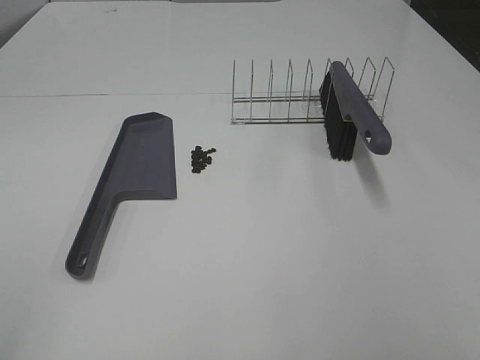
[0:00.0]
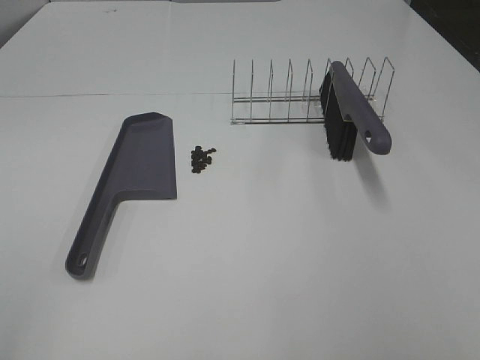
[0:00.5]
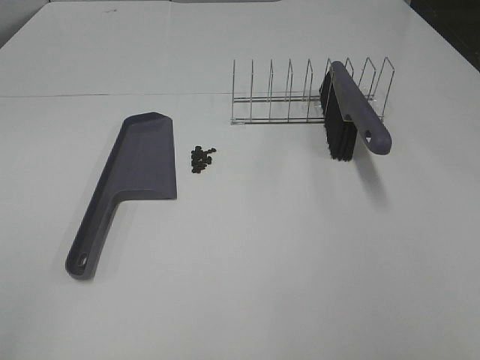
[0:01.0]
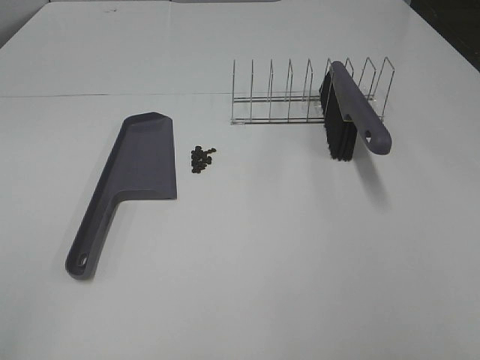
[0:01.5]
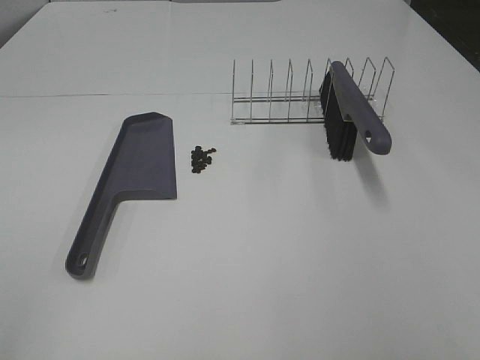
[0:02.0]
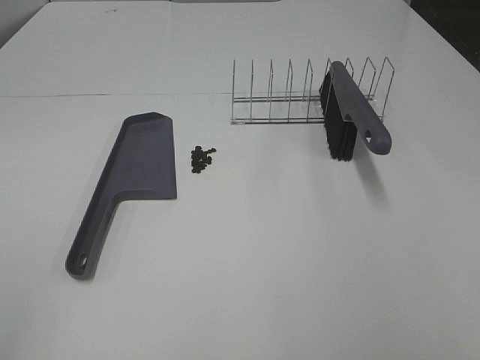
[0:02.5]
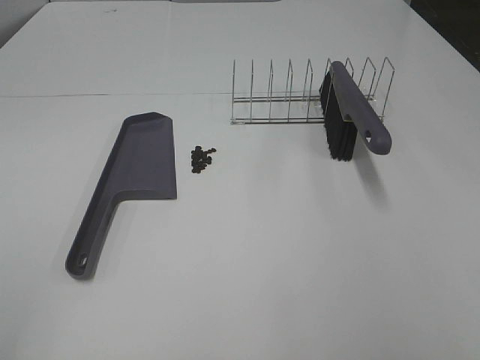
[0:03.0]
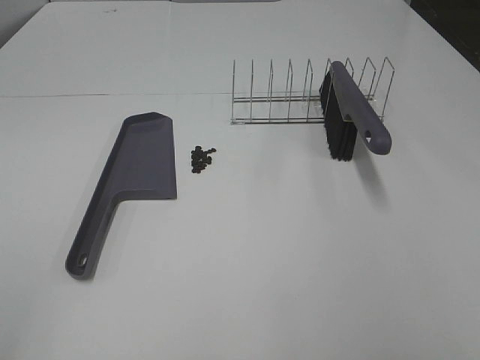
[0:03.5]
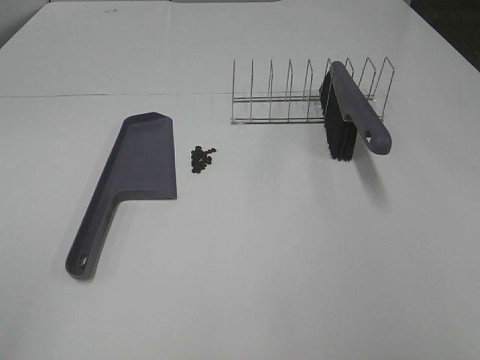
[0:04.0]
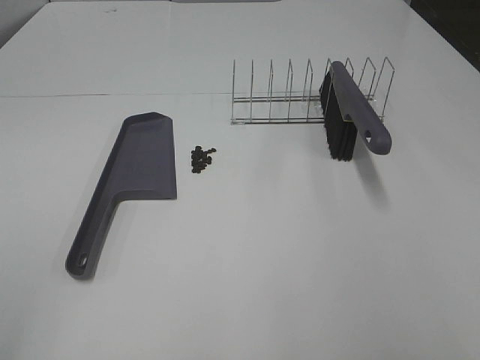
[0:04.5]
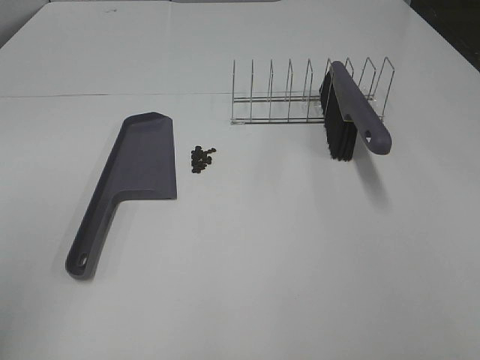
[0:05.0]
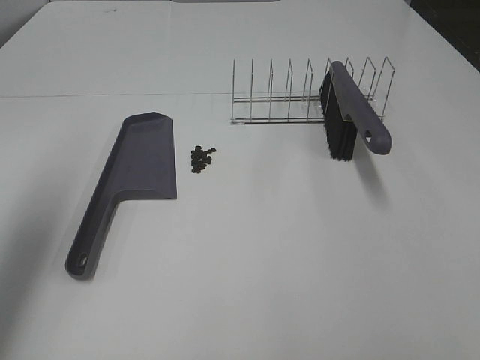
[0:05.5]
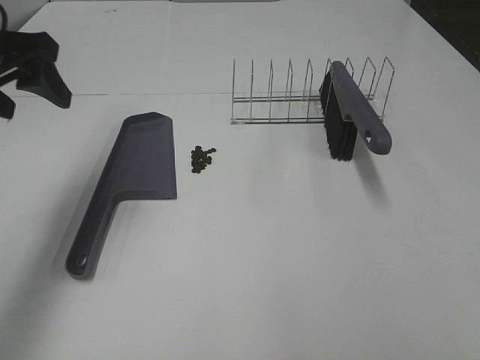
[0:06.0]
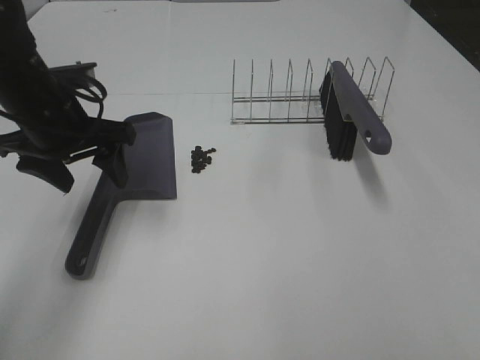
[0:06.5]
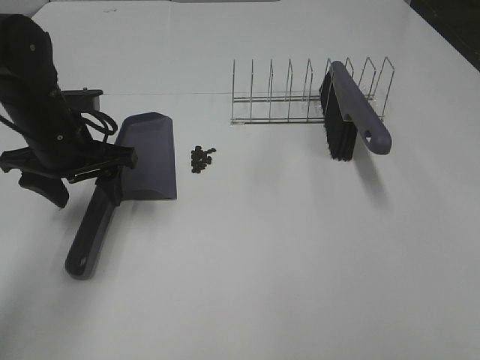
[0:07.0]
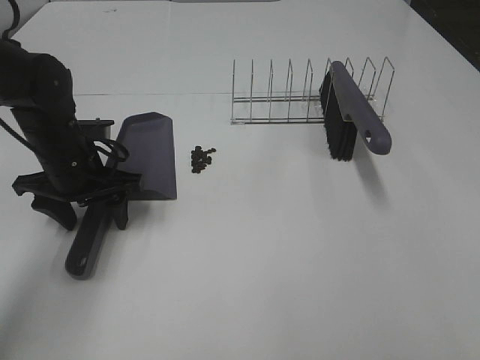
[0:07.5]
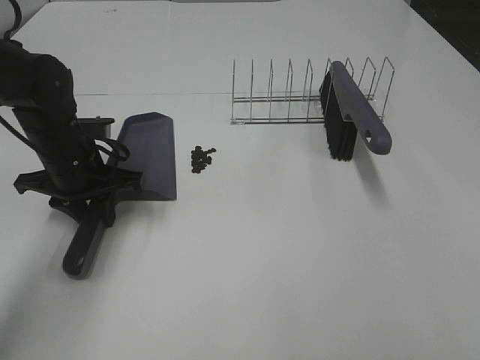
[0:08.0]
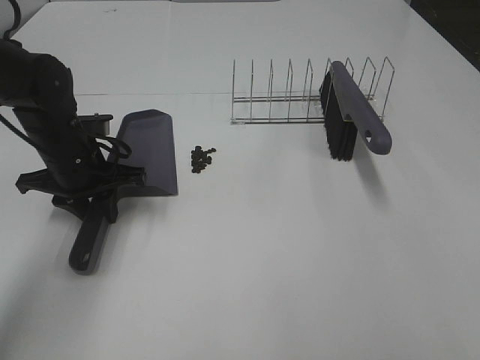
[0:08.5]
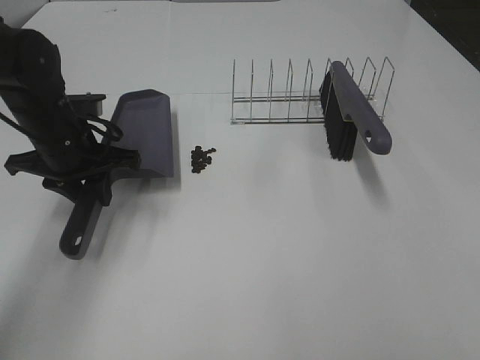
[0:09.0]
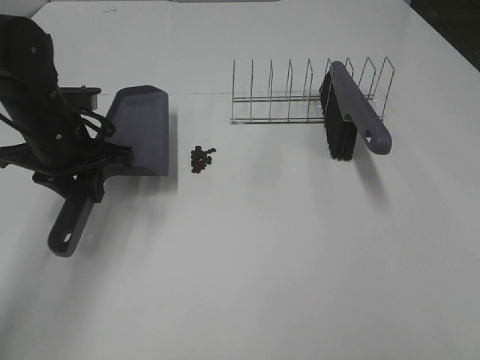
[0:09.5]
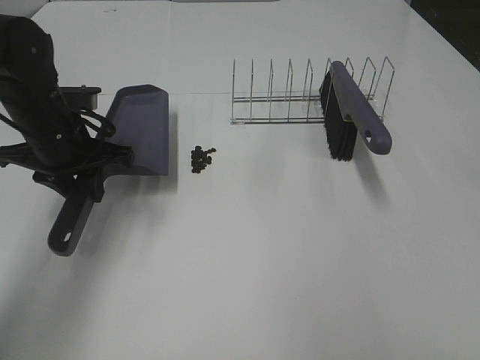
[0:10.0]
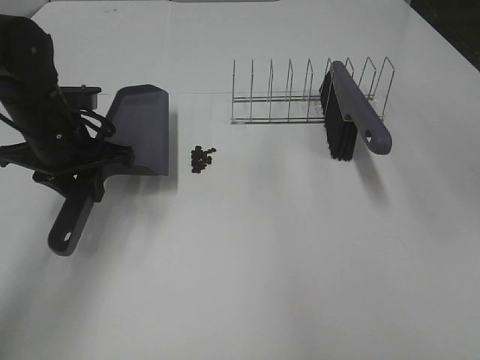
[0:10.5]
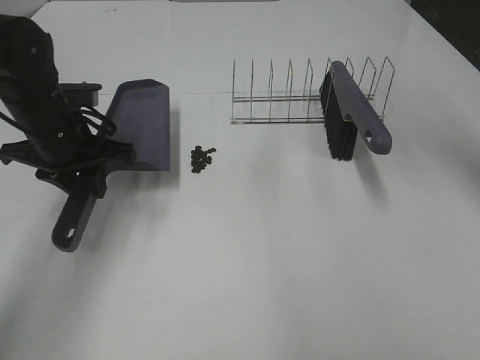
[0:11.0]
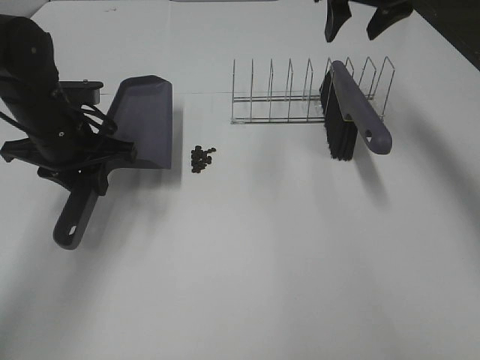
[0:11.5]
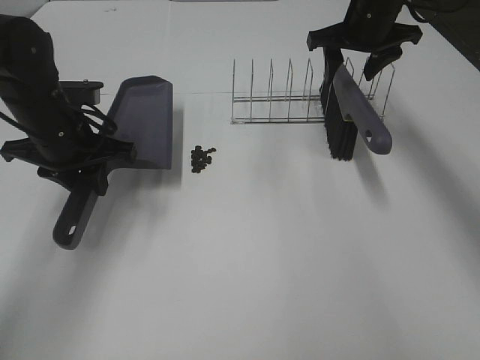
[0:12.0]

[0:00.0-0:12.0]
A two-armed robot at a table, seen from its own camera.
Task of the whole recording: Sweep Coffee Bean.
Step, 0:00.0 to 0:08.0: Left hand: grab the dustpan.
0:00.0 to 0:04.0: Both grippers stay about where they are.
0:04.0 to 0:06.0: The left gripper heads forward, covering about 35 cm.
0:06.0 to 0:08.0: The left gripper shifts some 15 cm downward, and closes its fingers.
0:08.0 to 0:10.0: The right gripper is displaced forward and upward by approximately 15 cm.
0:10.0 to 0:12.0: The right gripper is displaced forward by approximately 40 cm.

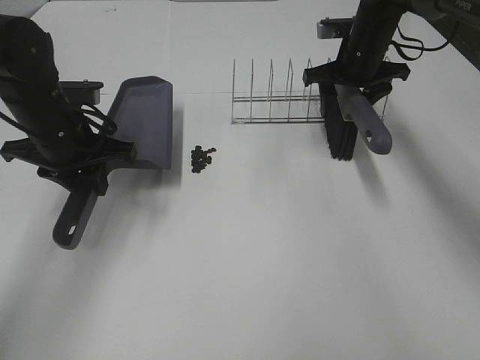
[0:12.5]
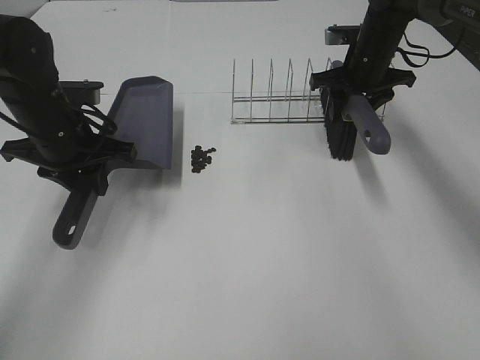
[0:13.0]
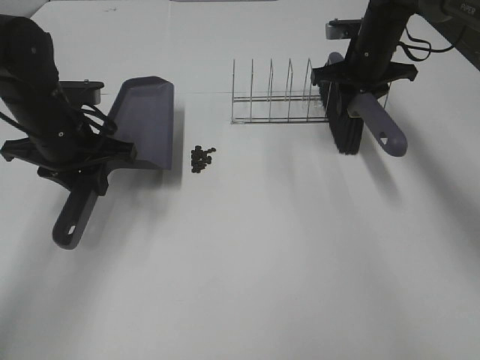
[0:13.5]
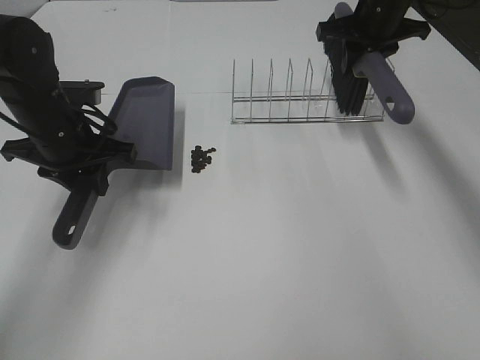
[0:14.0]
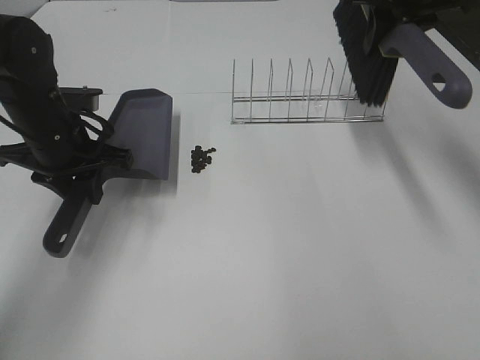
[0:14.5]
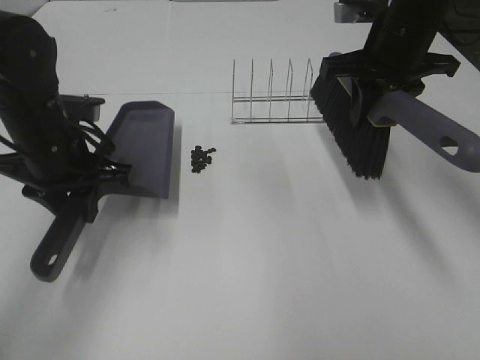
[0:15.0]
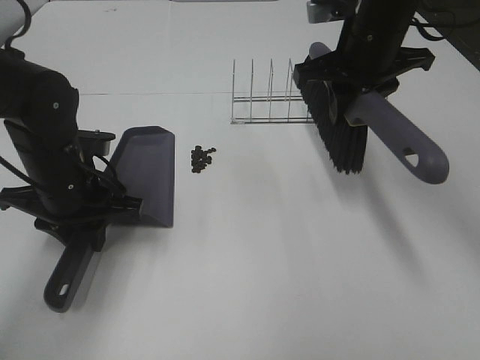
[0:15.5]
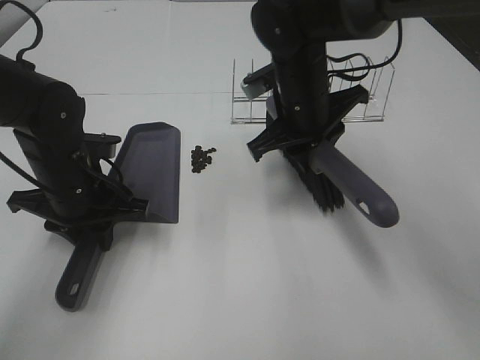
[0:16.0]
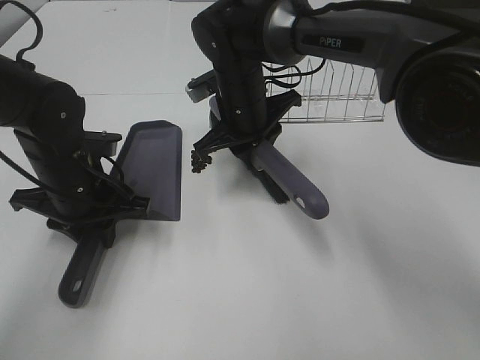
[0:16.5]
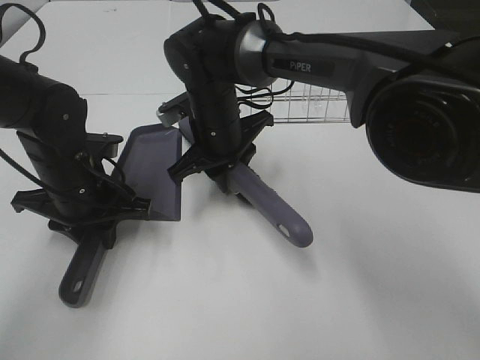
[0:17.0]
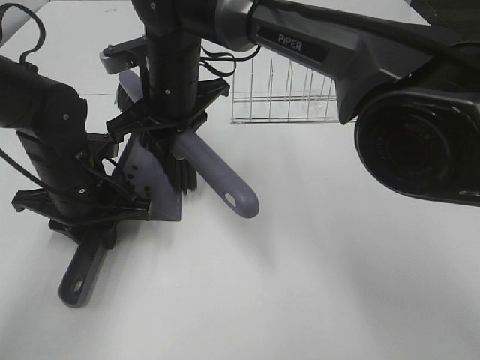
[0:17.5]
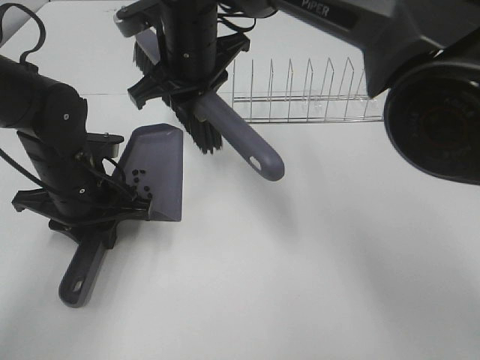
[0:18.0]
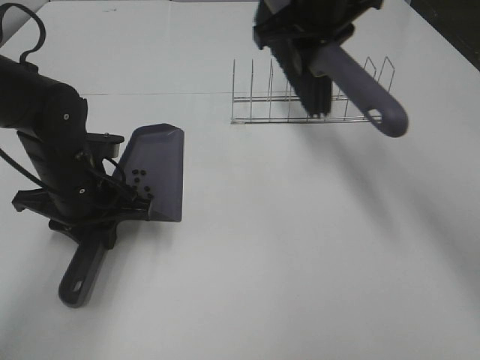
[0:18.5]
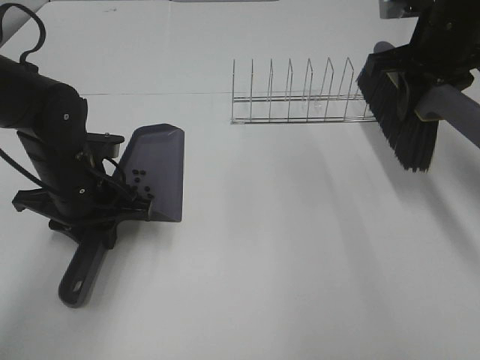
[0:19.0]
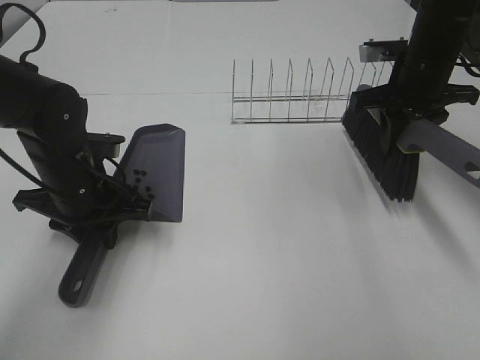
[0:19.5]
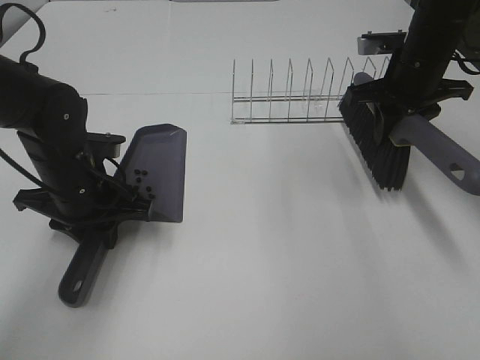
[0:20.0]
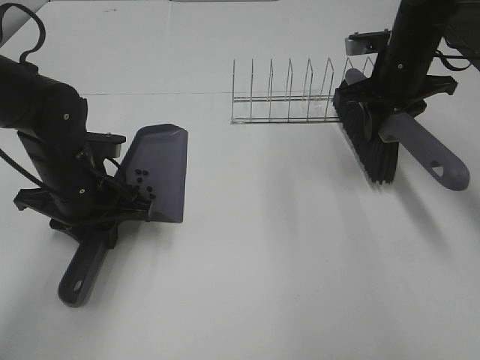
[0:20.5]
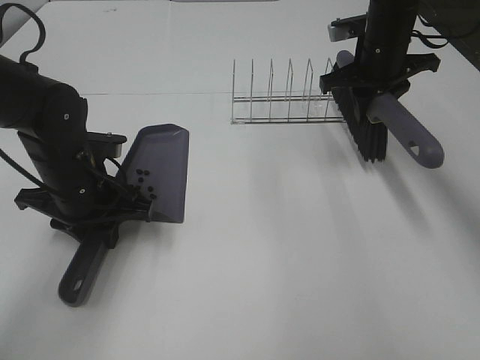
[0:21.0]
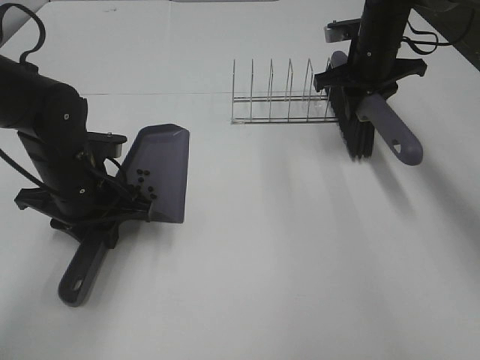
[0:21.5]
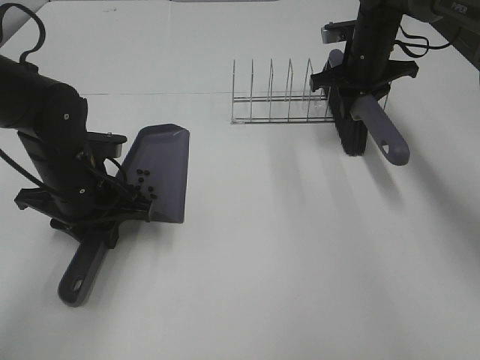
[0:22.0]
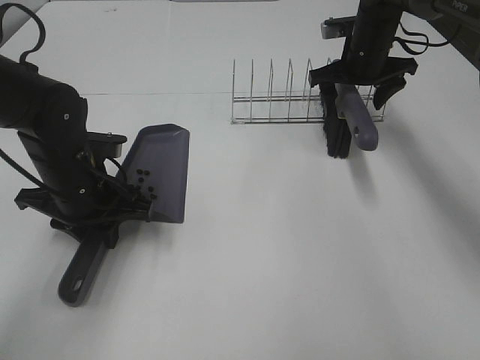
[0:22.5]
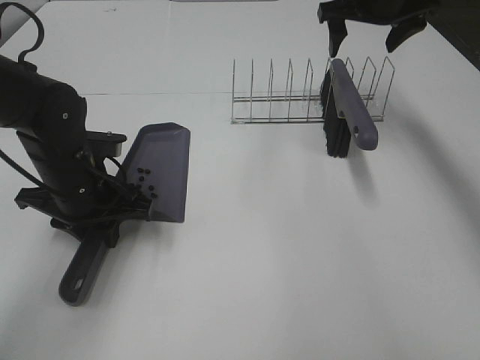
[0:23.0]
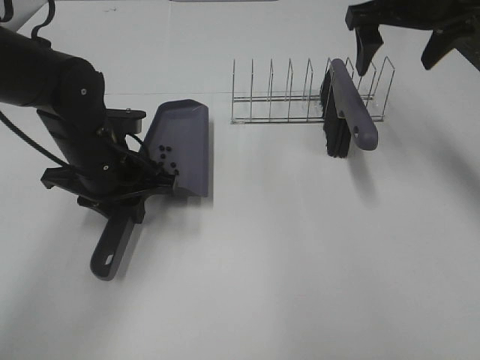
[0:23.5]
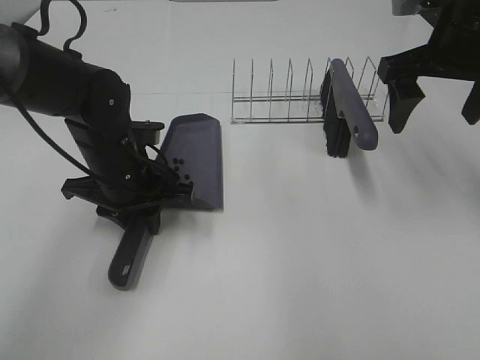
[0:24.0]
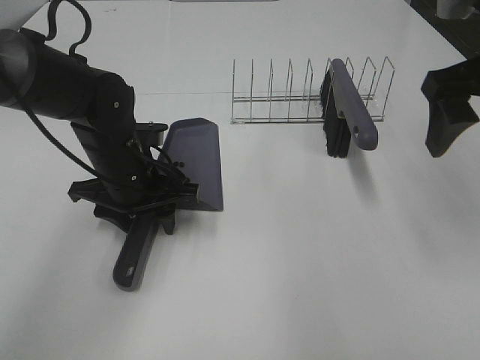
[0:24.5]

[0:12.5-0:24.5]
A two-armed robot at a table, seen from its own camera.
Task of the whole recording: Sweep Coffee Bean.
Step, 0:12.5 to 0:16.0: Left hand: move the dustpan to the left side of the coffee beans.
Step, 0:13.5 to 0:17.5: Right hand:sweep the coffee beans into the dustpan.
Step, 0:18.0 to 0:22.0: Right hand:place the broom on the rack.
Step, 0:22.5 to 0:24.5: Left hand:place the dustpan on the table.
0:12.5 to 0:14.5: The right gripper travels upward and backward by approximately 15 cm, and closes up.
0:14.5 to 0:16.5: The right gripper goes some 25 cm to the left and downward, while the left gripper changes place by approximately 5 cm.
0:16.5 to 0:18.5: The right gripper heads upward and to the right, covering roughly 15 cm.
0:18.5 to 0:20.5: The right gripper shifts roughly 15 cm to the right and downward.
0:20.5 to 0:22.5: The right gripper moves forward, roughly 10 cm, and opens up.
0:22.5 to 0:24.5: The right gripper is displaced backward and upward by approximately 25 cm, while the left gripper travels to the right by roughly 5 cm, and opens its fingers.

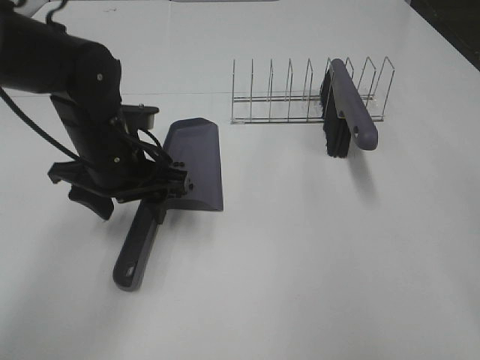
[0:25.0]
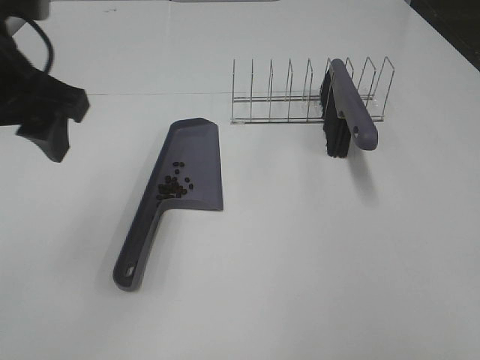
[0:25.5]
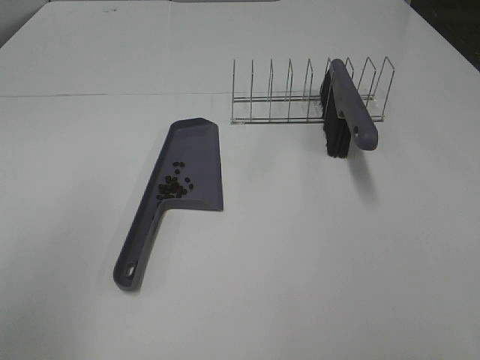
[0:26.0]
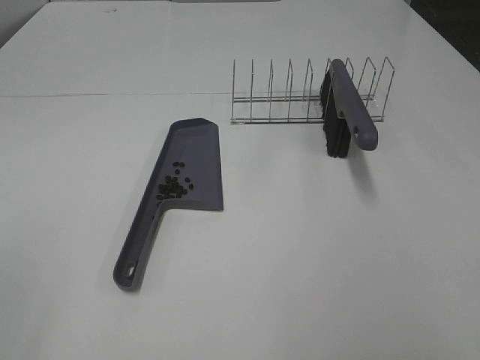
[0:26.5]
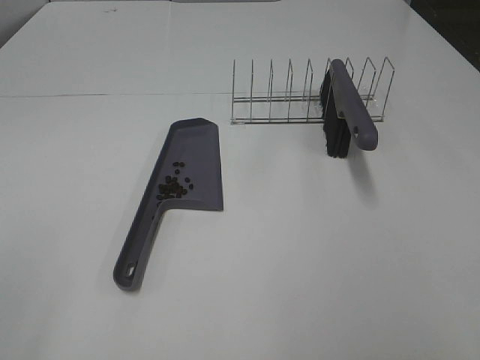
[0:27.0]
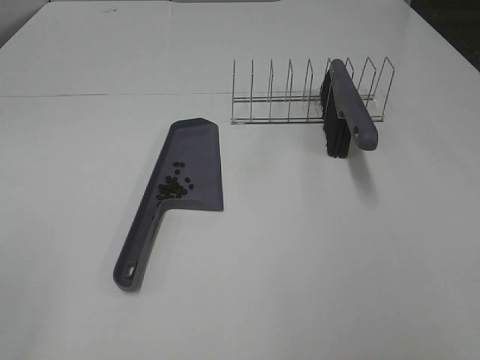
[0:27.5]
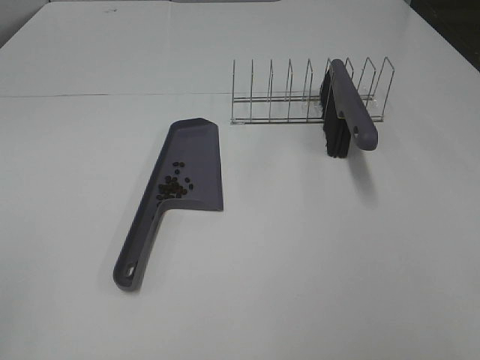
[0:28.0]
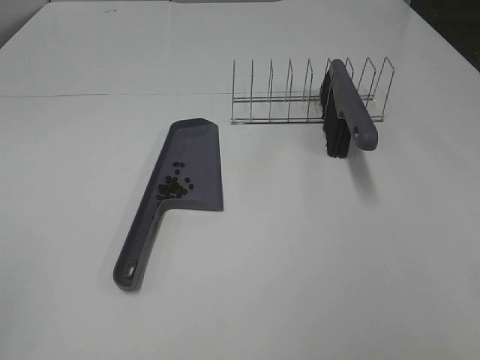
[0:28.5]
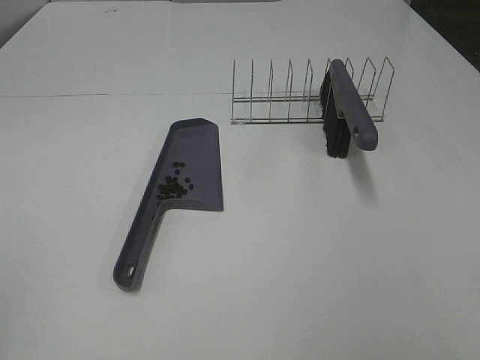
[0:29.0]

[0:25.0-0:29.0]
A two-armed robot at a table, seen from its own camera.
Task of the whole recording: Sweep Coffee Bean.
0:25.0 to 0:27.0: The right gripper shifts approximately 10 cm backward; the left gripper goes about 40 cm backward, to the left and upward.
